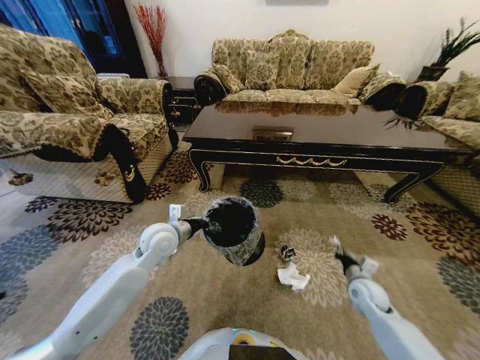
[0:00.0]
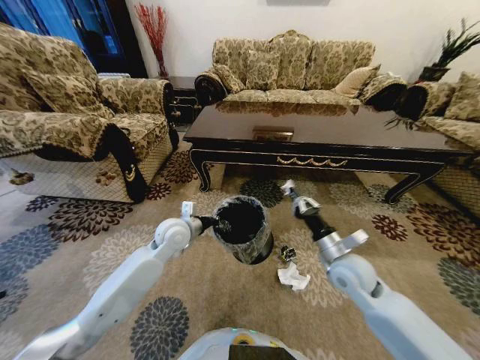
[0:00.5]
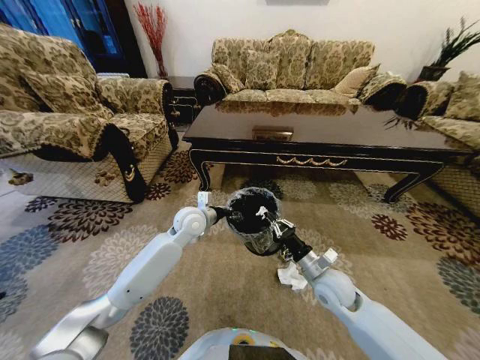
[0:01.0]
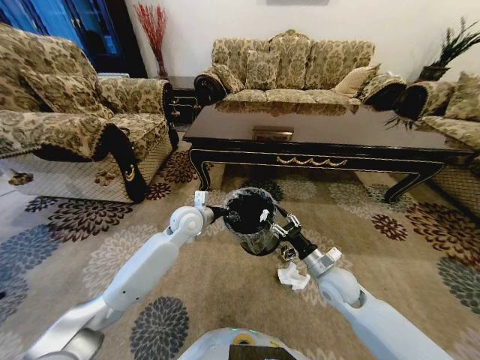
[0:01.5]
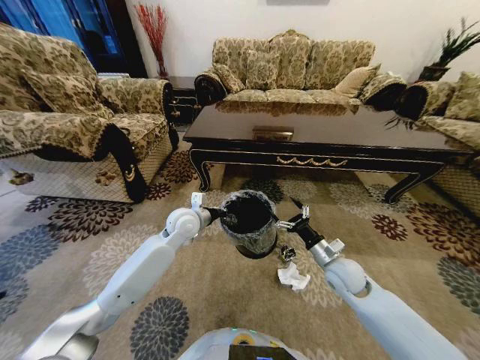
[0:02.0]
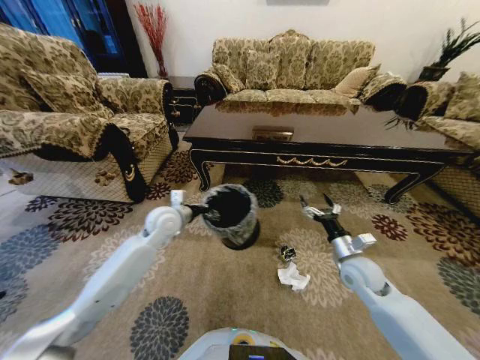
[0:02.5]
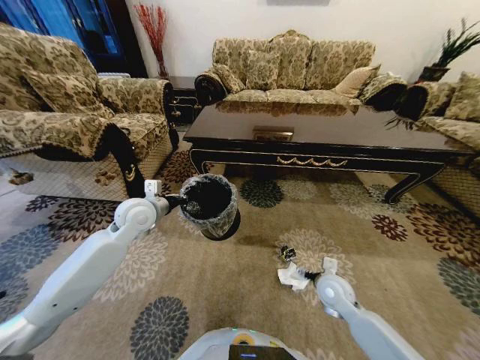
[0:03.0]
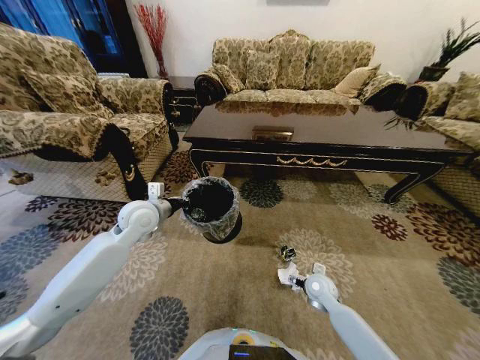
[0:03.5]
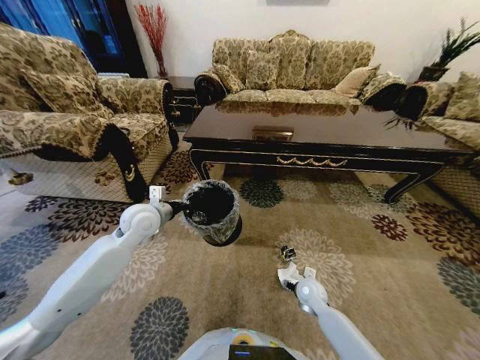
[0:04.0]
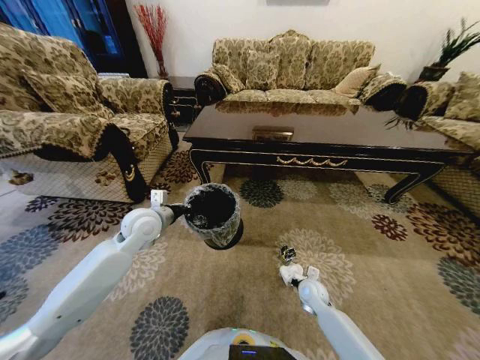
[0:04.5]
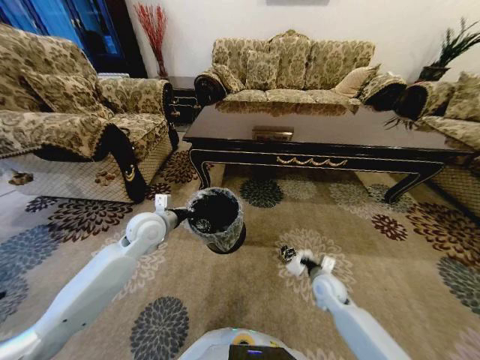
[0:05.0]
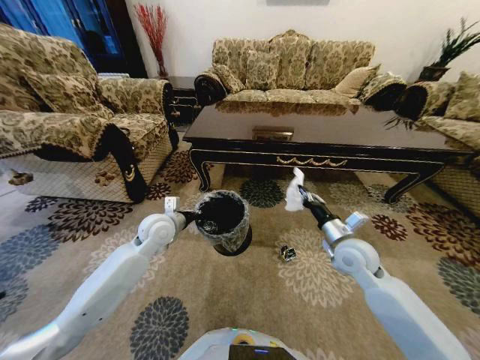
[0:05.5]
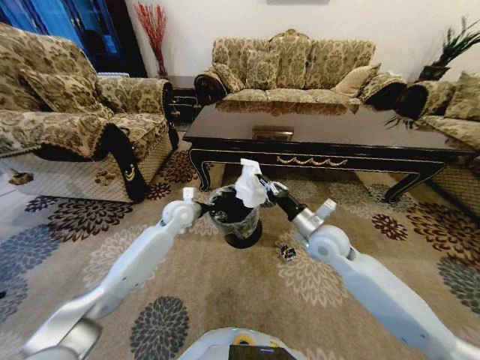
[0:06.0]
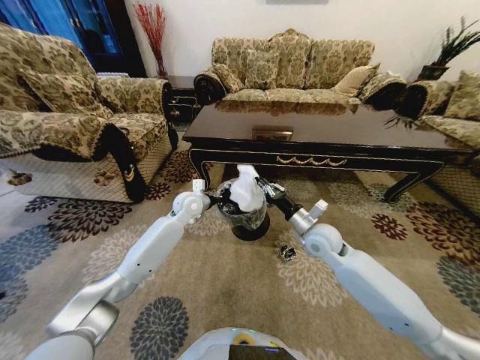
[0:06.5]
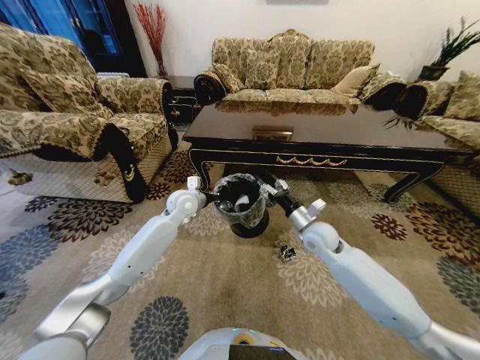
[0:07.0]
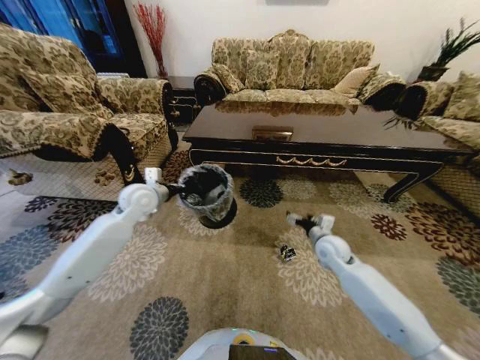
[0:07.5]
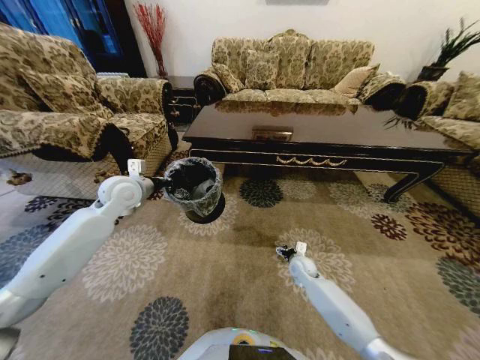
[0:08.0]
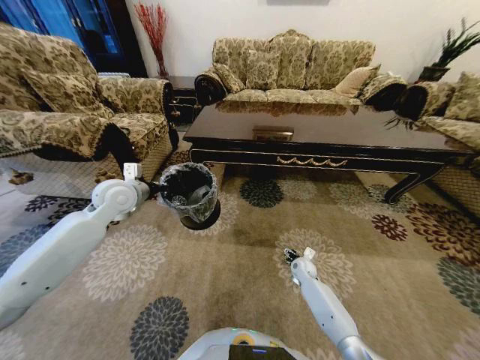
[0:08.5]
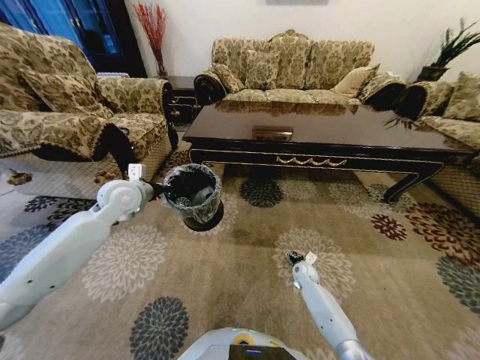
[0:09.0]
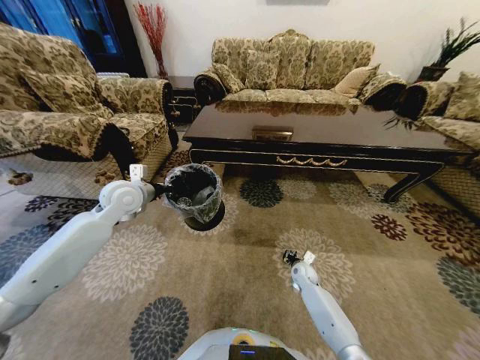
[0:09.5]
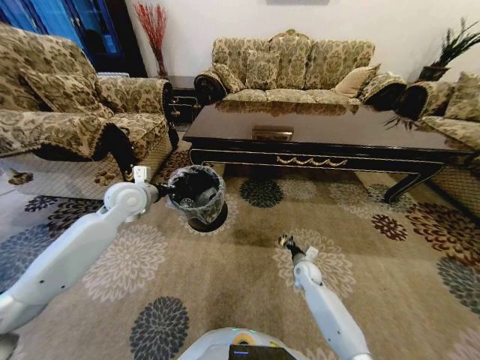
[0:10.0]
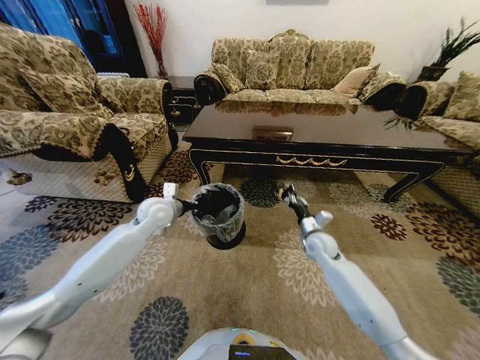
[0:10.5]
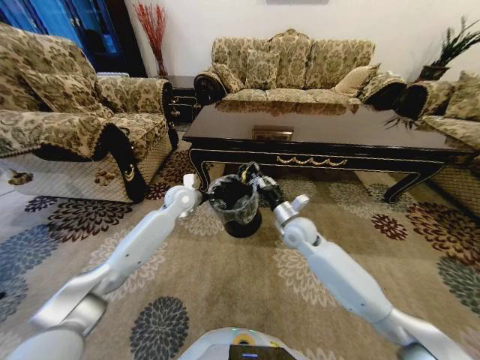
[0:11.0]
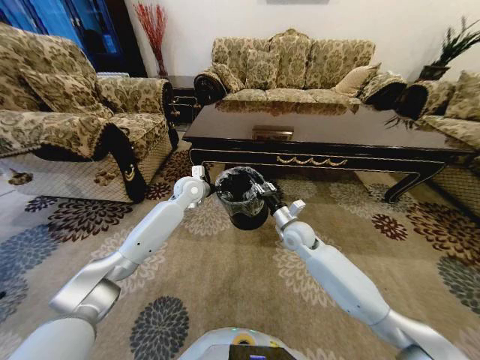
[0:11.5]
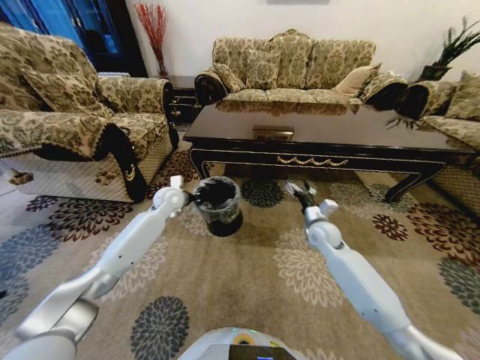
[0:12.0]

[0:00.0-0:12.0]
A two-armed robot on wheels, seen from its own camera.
Task of the whole recording: Move to the front of the table and pick up the trash from the floor, then place it into the trash bin.
0:00.0 to 0:02.0: The right gripper is displaced to the left and upward by roughly 15 cm, and opens up. Meanwhile the left gripper travels forward by approximately 5 cm.
0:02.0 to 0:04.0: The right gripper travels downward by roughly 15 cm. The left gripper travels to the left by some 10 cm.
0:04.0 to 0:06.0: The right gripper travels upward by roughly 25 cm, and closes. Meanwhile the left gripper is displaced forward, to the right and downward by roughly 10 cm.
0:06.0 to 0:08.0: The right gripper is displaced downward by about 25 cm, and opens its fingers. The left gripper heads to the left and upward, covering some 15 cm.
0:08.0 to 0:10.0: The right gripper closes up.
0:10.0 to 0:12.0: The left gripper is displaced forward, downward and to the right by some 15 cm. The right gripper moves upward, some 20 cm, and opens its fingers.

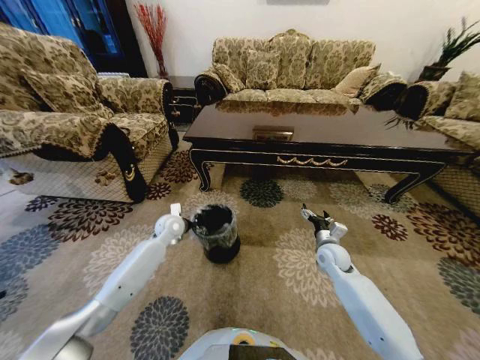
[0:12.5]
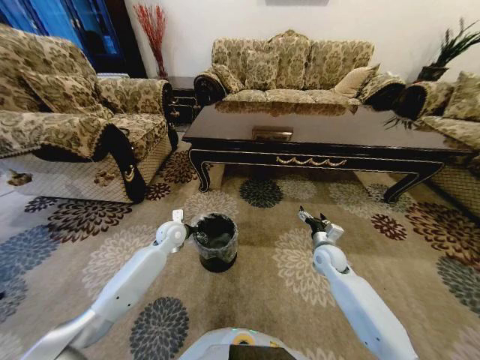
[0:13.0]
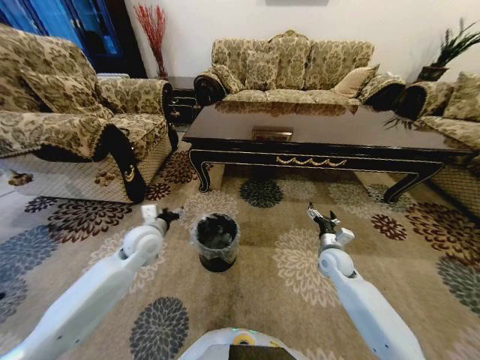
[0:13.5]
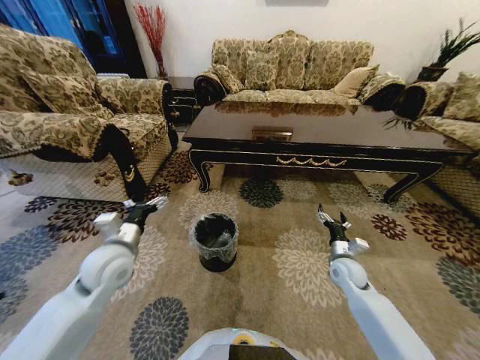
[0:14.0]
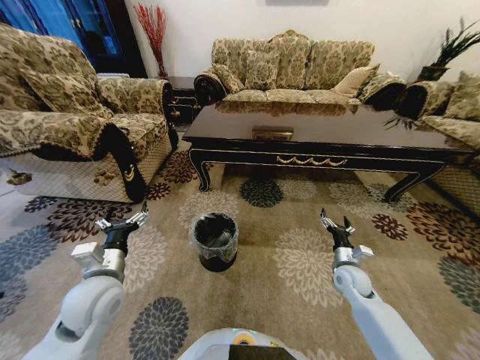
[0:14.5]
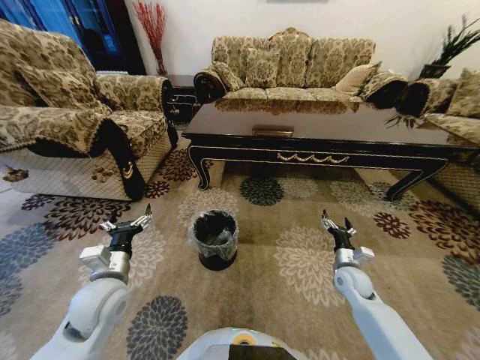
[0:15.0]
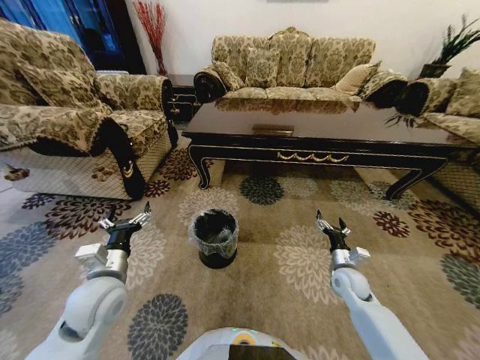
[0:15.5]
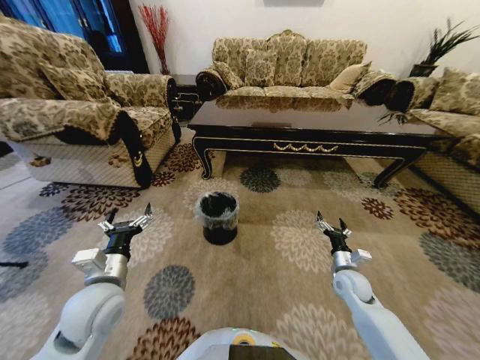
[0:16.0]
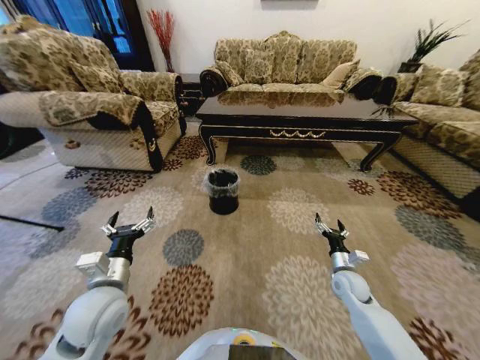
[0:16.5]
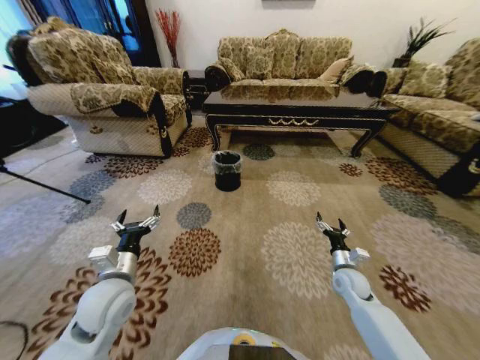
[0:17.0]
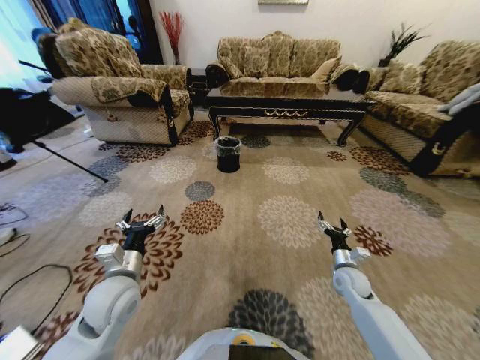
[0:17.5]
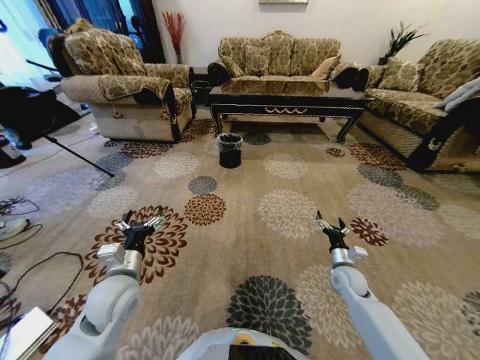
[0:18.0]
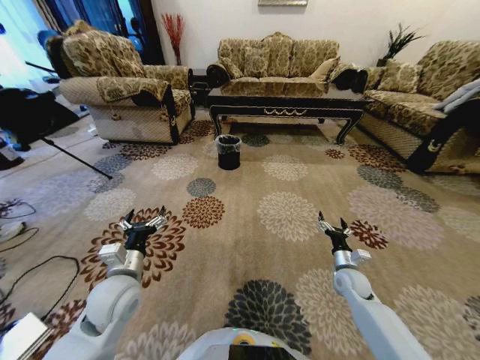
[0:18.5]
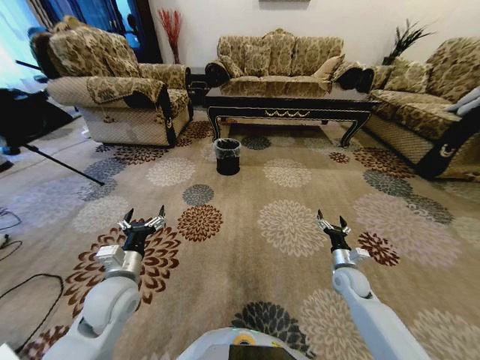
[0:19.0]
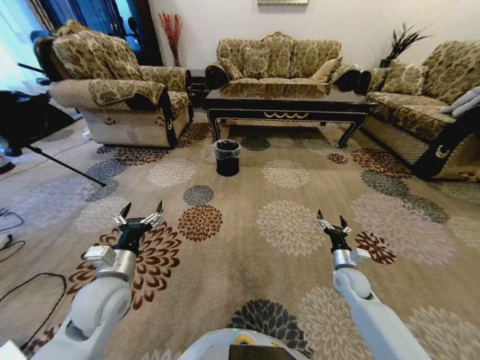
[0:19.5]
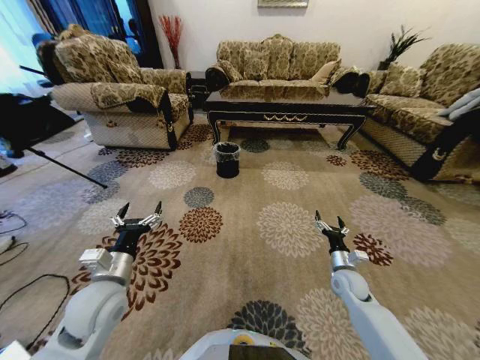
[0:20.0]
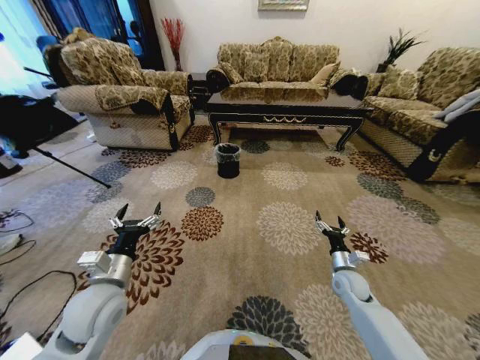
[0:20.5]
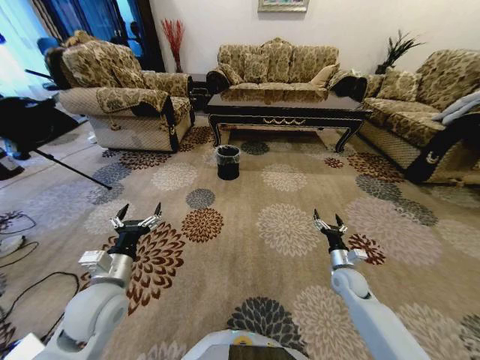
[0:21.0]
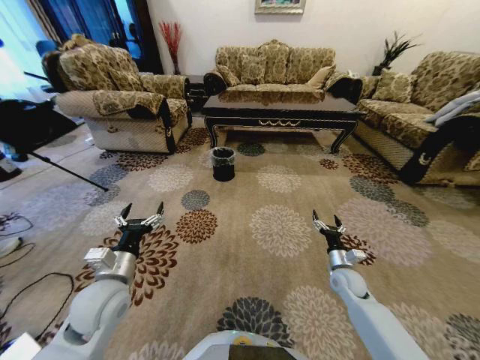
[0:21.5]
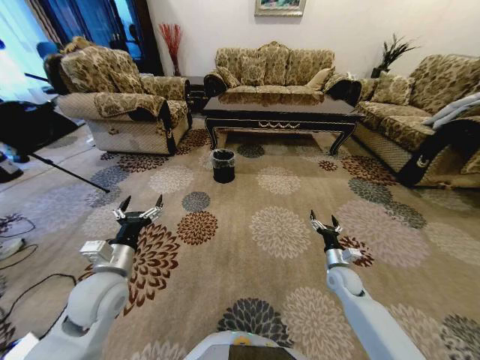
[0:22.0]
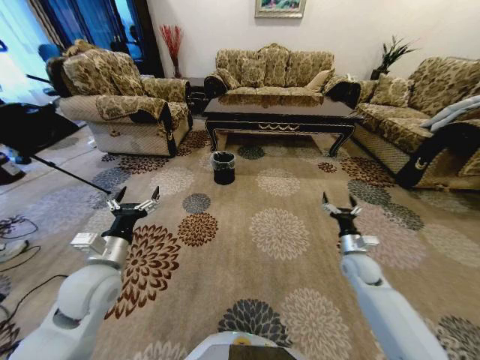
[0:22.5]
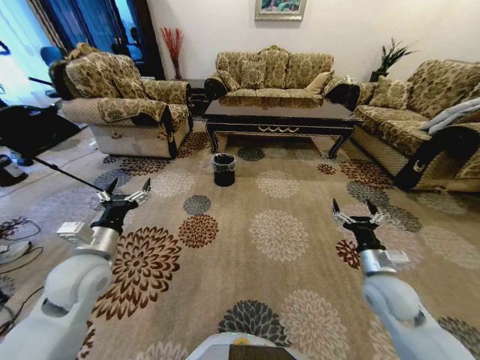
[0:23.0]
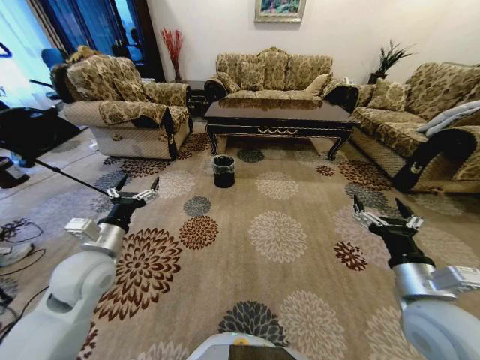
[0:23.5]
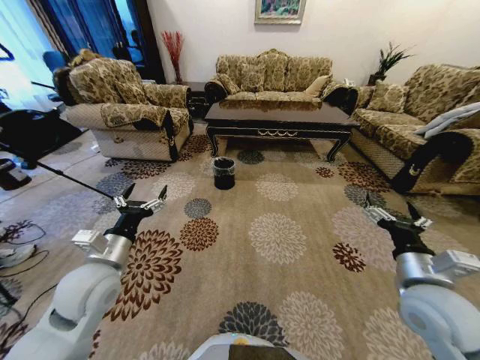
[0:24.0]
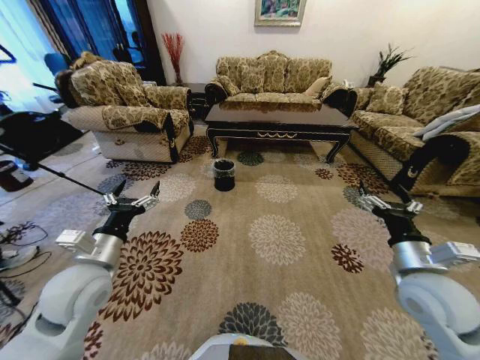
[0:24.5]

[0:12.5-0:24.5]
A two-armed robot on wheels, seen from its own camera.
Task of the whole recording: Move to the front of the table and pick up the trash from the floor, then place it into the trash bin.
0:12.5 to 0:14.5: The right gripper heads backward, covering roughly 5 cm. The left gripper moves backward, some 25 cm, and opens its fingers.
0:20.5 to 0:22.5: The right gripper shifts by roughly 5 cm.
0:22.5 to 0:24.5: The right gripper heads upward and backward, covering about 20 cm.
